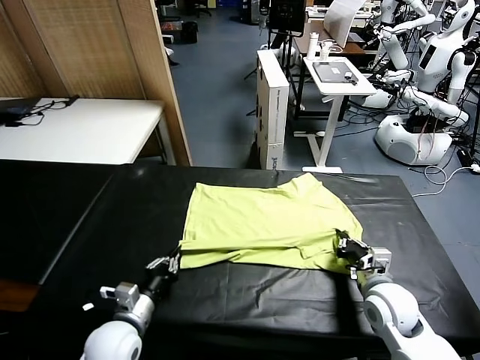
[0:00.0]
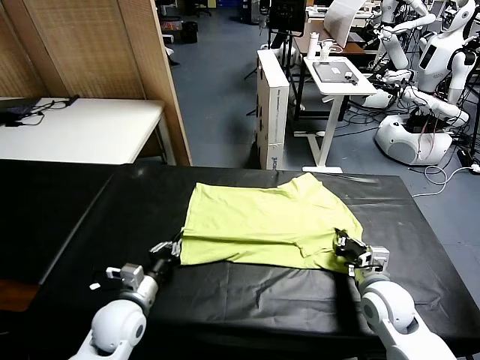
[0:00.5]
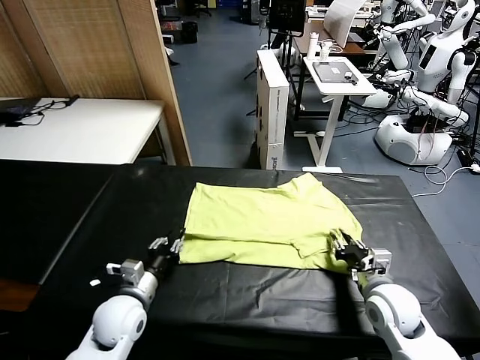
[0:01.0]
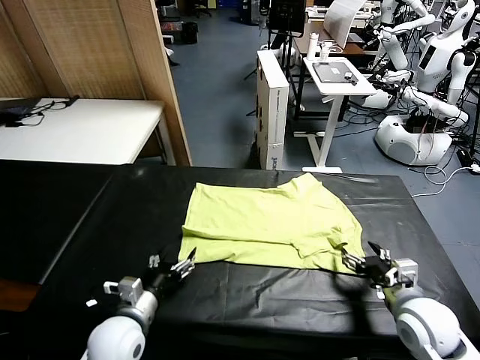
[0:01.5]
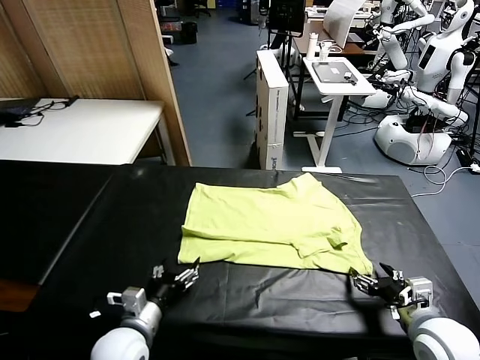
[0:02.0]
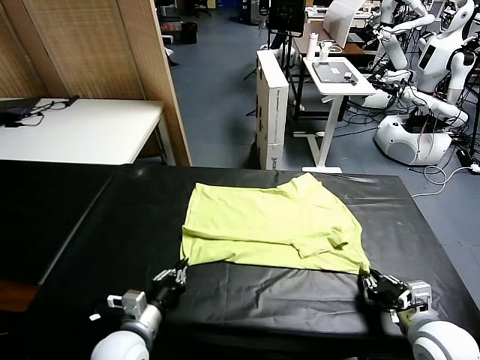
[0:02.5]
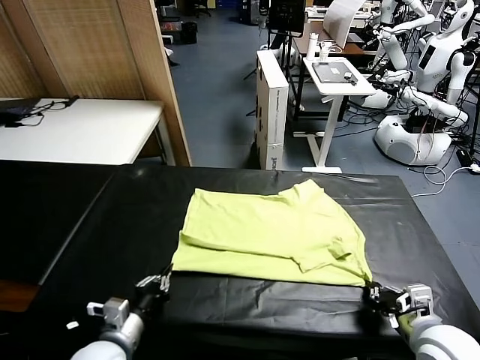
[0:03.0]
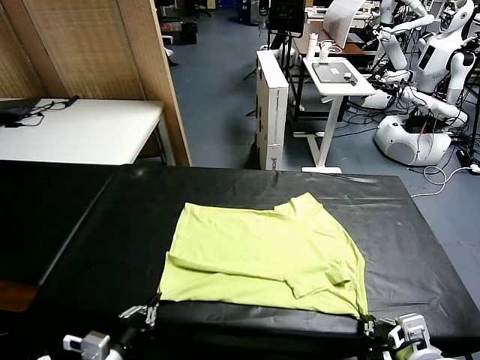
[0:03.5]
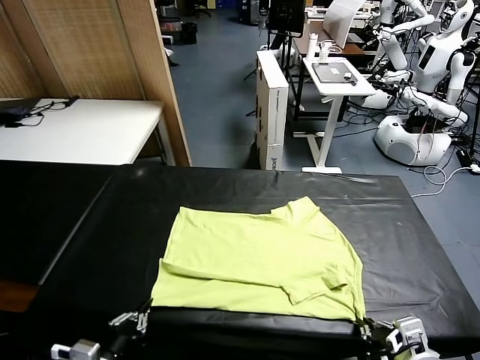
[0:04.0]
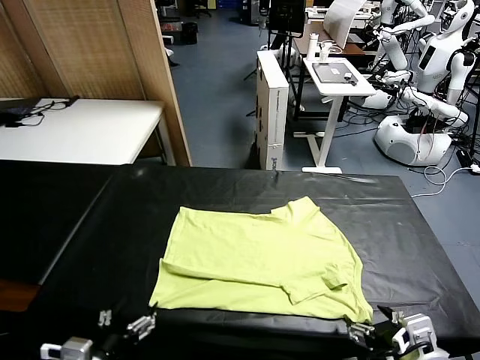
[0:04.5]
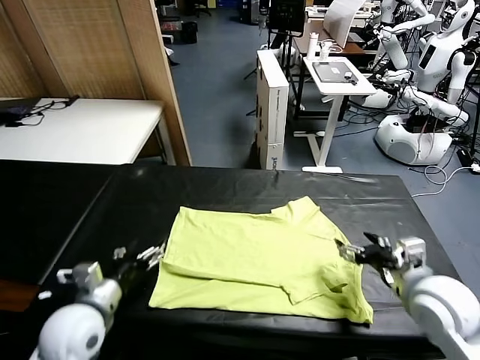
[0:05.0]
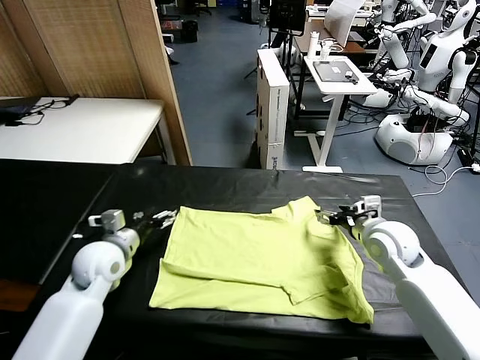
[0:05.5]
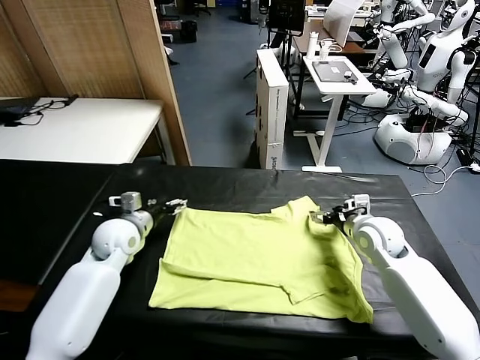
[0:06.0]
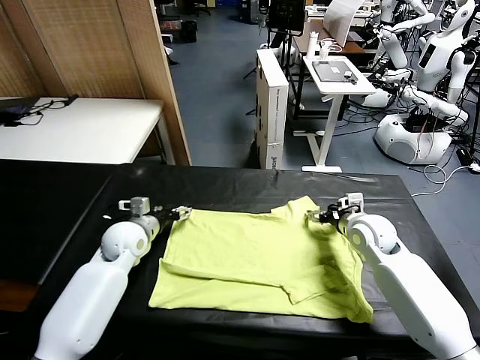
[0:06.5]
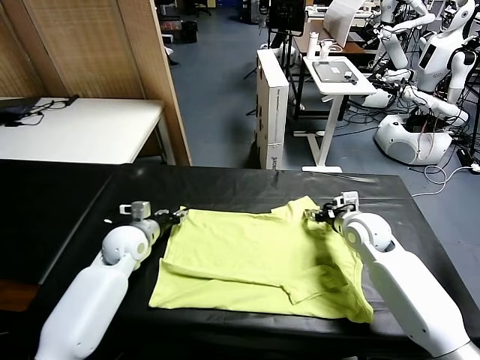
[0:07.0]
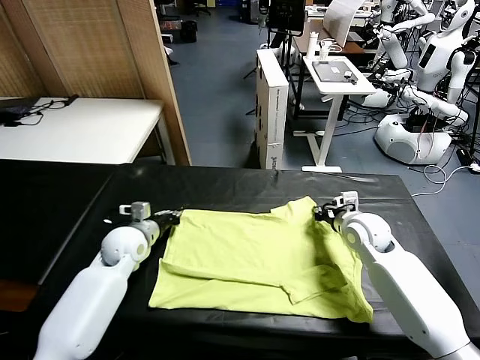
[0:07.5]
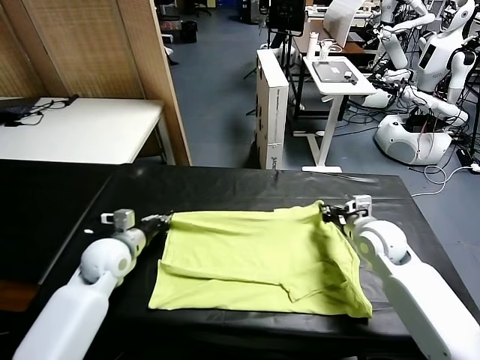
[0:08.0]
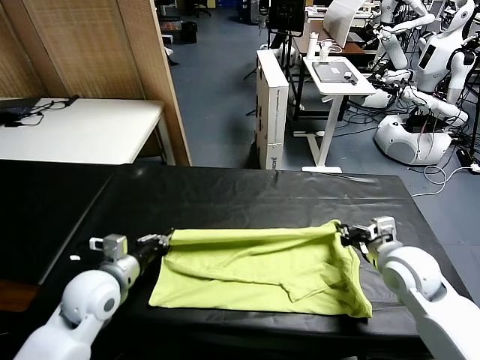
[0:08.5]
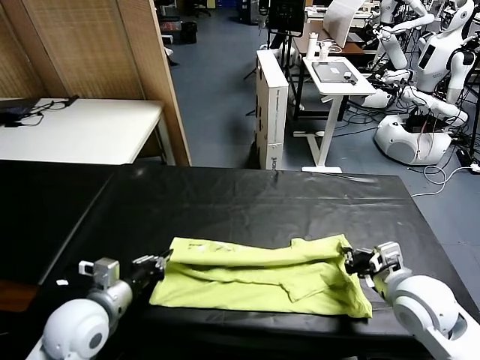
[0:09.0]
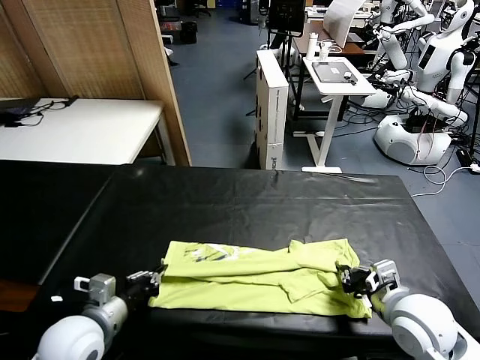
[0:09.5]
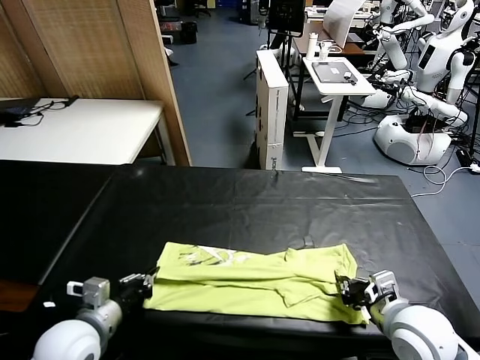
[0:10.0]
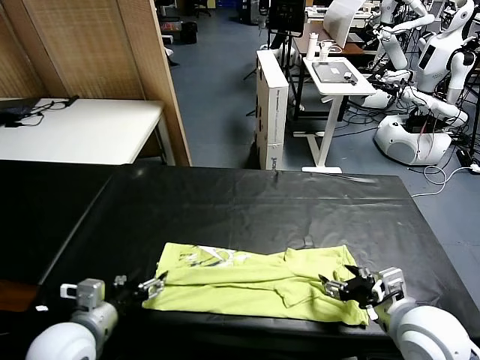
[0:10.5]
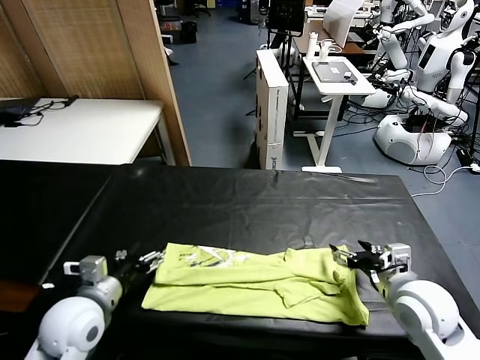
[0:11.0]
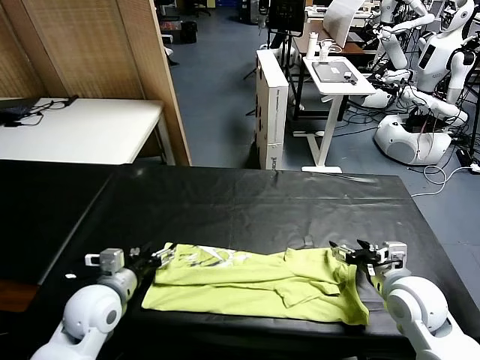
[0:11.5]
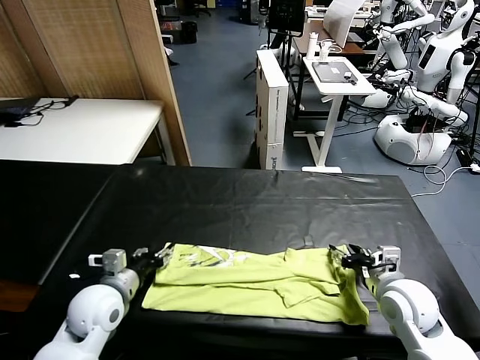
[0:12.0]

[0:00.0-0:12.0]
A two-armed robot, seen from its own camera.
Task of the whole recording: fold and organize the clothes.
Step, 0:01.5 to 0:04.5: Drag the clothes downward with both gripper.
Step, 0:05.0 to 0:07.5: use both grippers simultaneously to clamp the upper edge of the clothing fabric.
Step, 0:08.0 to 0:10.5: use both grippers to drag the upper edge of the fabric backward and fold it over the lower edge.
0:00.0 to 0:02.0: The right gripper travels backward and to the right by roughly 10 cm, and opens. Meanwhile the left gripper opens.
0:02.0 to 0:04.0: The right gripper travels backward, upward and to the left by roughly 10 cm, and opens up, while the left gripper shifts roughly 10 cm backward and upward, and closes its fingers.
0:04.0 to 0:06.0: The grippers both shift forward by roughly 30 cm. The left gripper opens up.
0:06.0 to 0:08.0: The two grippers go about 5 cm backward. The left gripper closes, while the right gripper closes.
0:08.0 to 0:10.0: Both grippers travel together backward, some 15 cm.
0:10.0 to 0:12.0: The two grippers go some 5 cm forward. The right gripper opens its fingers. The left gripper opens its fingers.

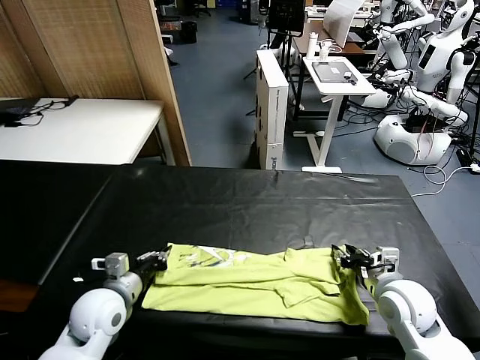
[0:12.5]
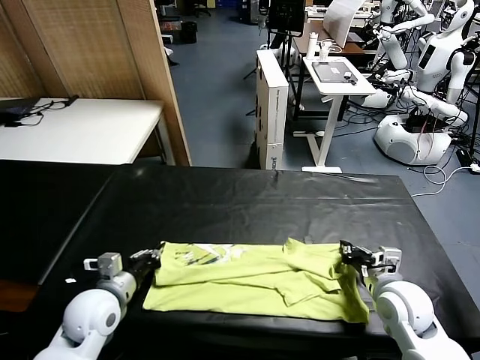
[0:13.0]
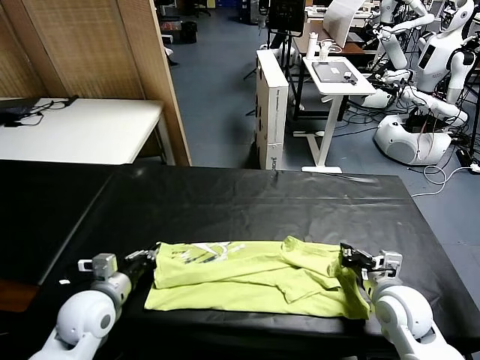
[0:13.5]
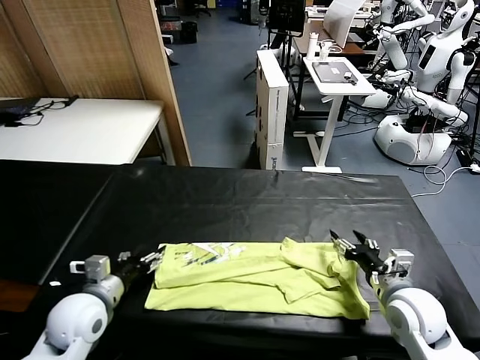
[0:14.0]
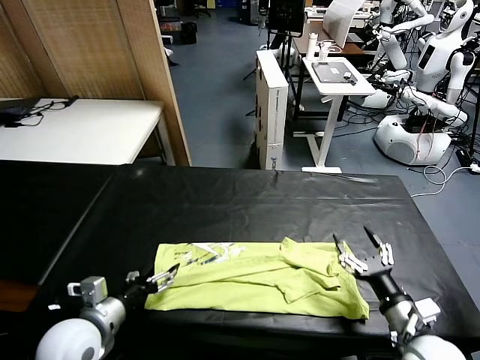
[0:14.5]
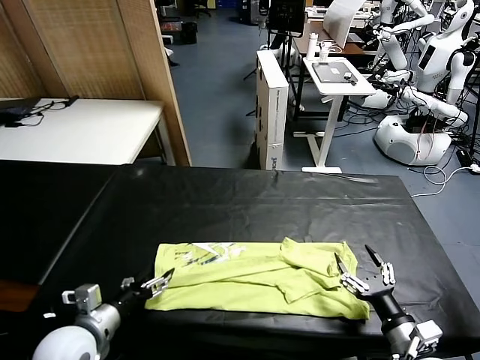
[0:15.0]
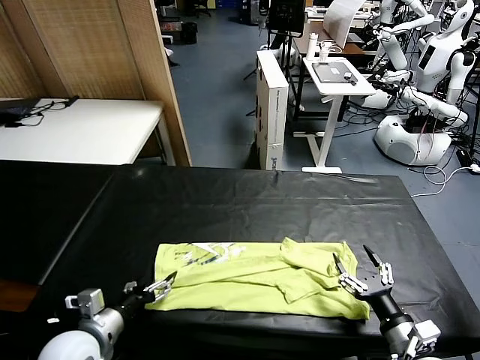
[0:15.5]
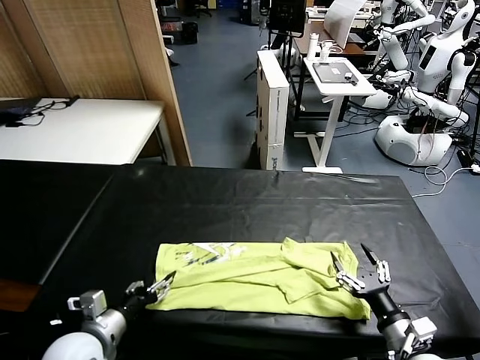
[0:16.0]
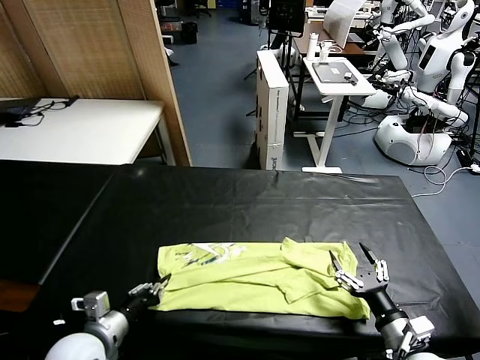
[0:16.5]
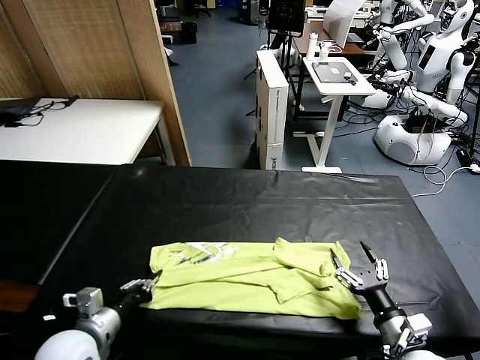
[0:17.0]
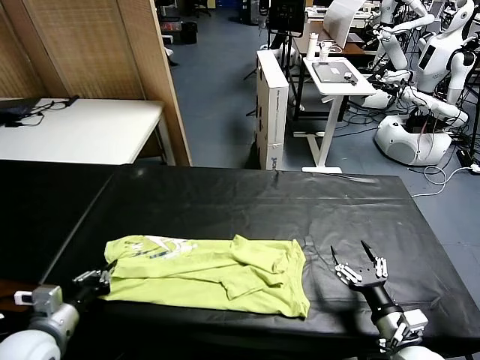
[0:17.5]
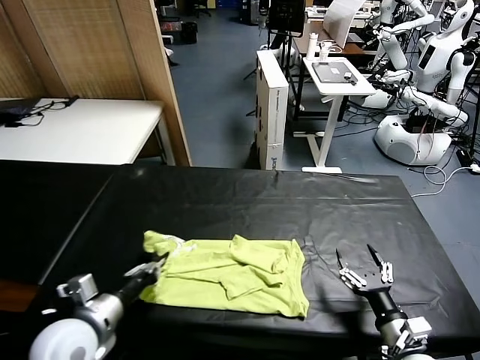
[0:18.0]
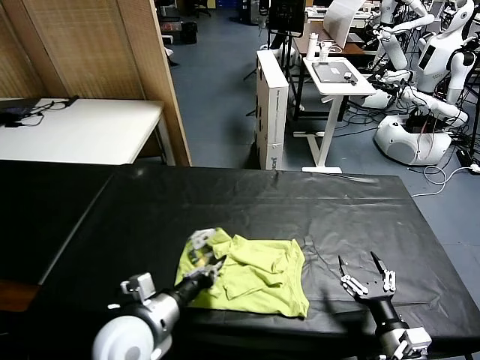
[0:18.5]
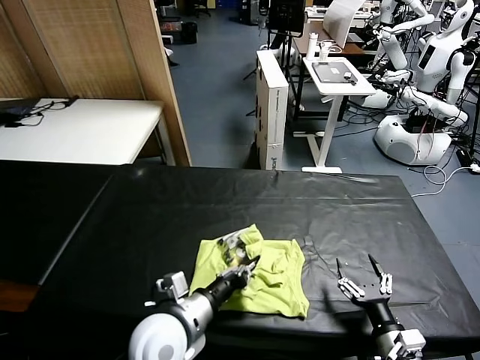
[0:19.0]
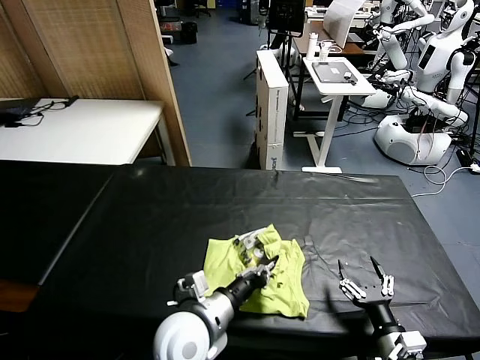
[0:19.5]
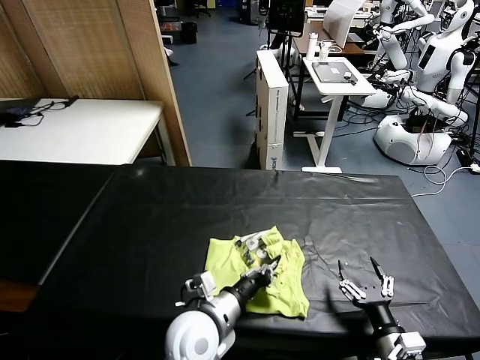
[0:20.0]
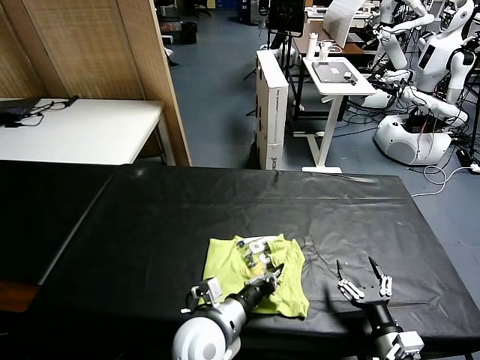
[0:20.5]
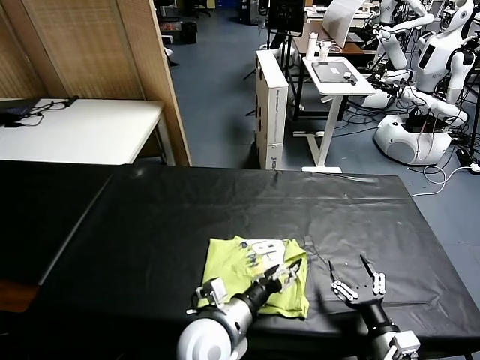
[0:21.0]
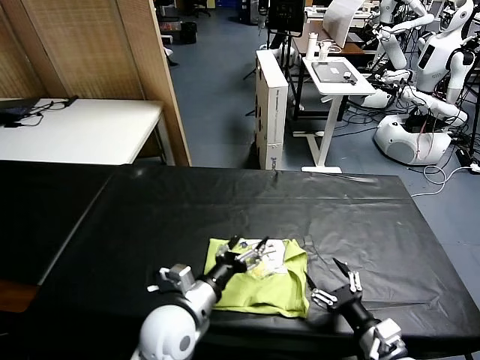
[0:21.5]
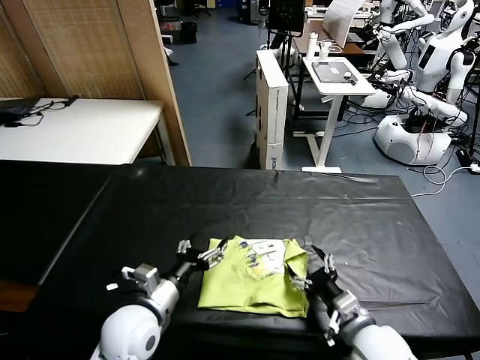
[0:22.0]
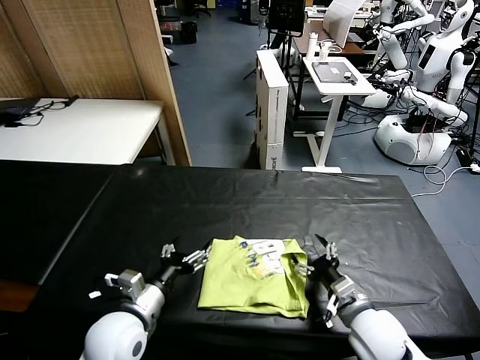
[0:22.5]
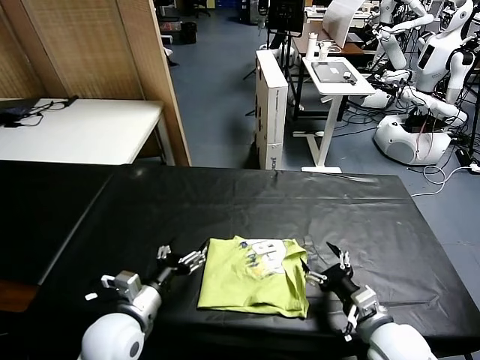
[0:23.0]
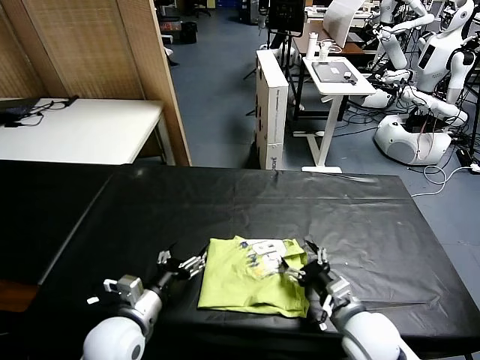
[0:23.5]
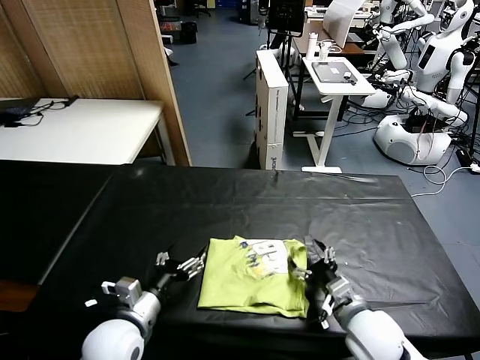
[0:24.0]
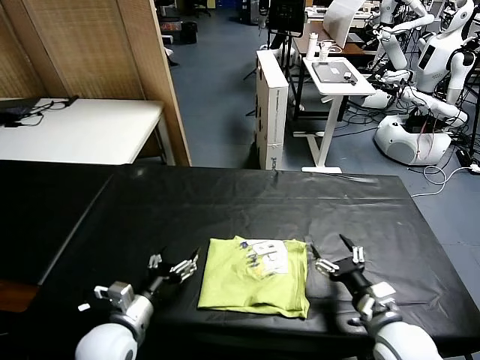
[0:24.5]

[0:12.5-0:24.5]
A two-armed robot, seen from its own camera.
Task of the whole recording: fold and organize the clothes.
Step, 0:12.5 to 0:16.5: use the left gripper to clamp the left edge of the fabric.
Step, 0:17.0 to 0:21.0: use the left gripper to drag the left edge of the fabric to the left and folds it over the right edge.
0:12.5 to 0:14.5: The right gripper moves backward, some 10 cm, and opens its fingers; the left gripper is displaced backward by approximately 5 cm, and opens.
0:14.5 to 0:16.5: The left gripper closes up.
0:16.5 to 0:18.5: The left gripper moves to the right, roughly 10 cm.
0:18.5 to 0:20.5: The left gripper goes roughly 10 cm to the right.
0:20.5 to 0:22.5: The right gripper heads forward and upward, covering roughly 10 cm. Meanwhile the left gripper moves to the left, some 15 cm, and opens up.
0:22.5 to 0:24.5: The right gripper shifts by about 5 cm.

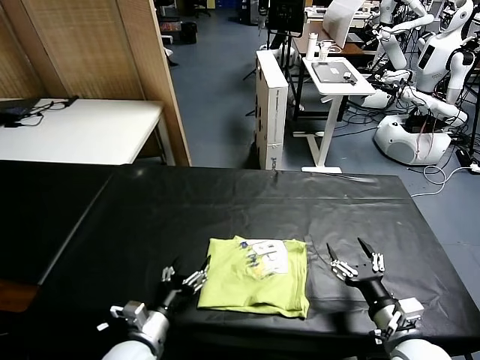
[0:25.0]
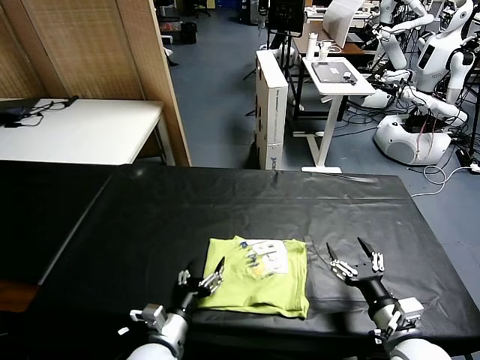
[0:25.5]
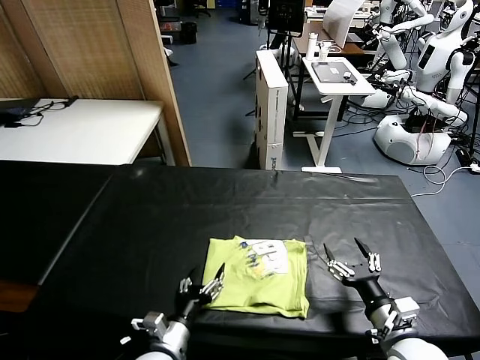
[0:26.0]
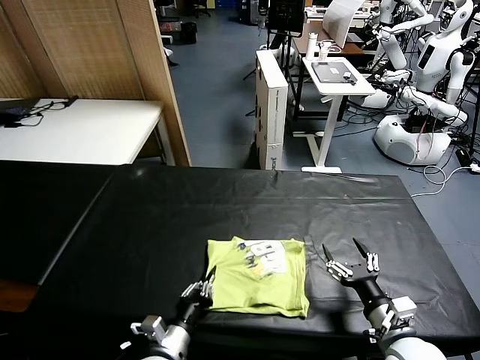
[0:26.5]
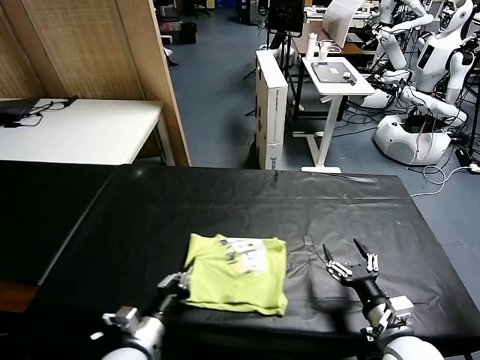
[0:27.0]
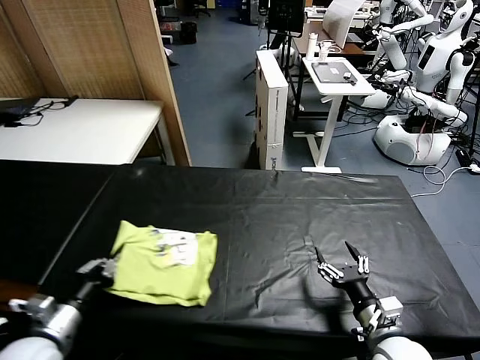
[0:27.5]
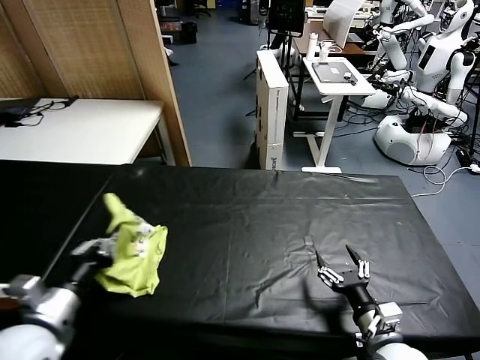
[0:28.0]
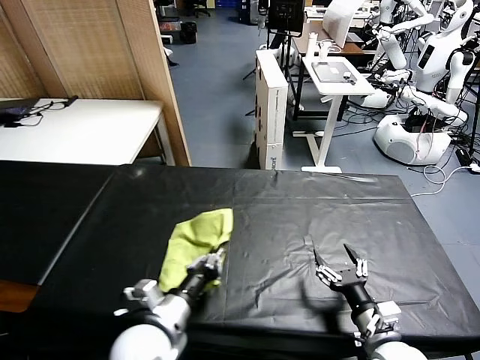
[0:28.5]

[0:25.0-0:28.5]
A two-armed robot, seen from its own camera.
Task of the whole recording: fold and organize the clothes.
0:25.0 to 0:27.0: The left gripper changes place by some 5 cm, and closes.
0:27.0 to 0:28.5: The left gripper shifts approximately 10 cm to the right.
